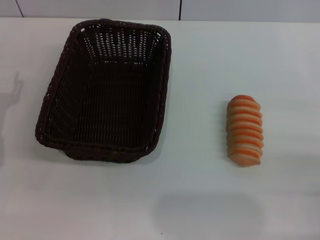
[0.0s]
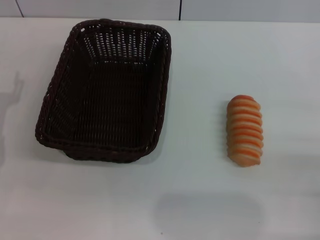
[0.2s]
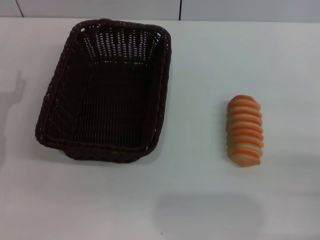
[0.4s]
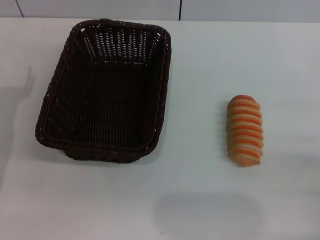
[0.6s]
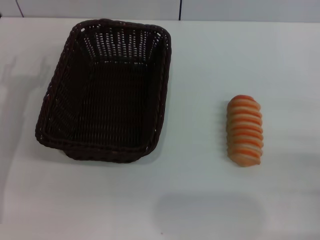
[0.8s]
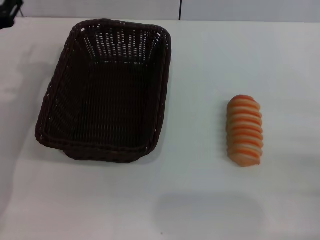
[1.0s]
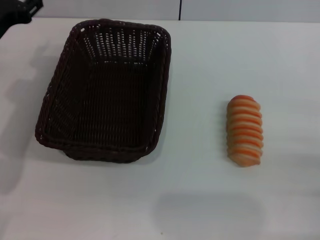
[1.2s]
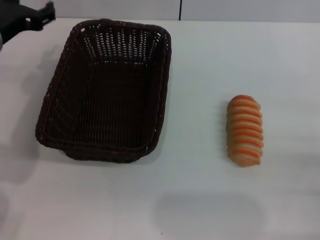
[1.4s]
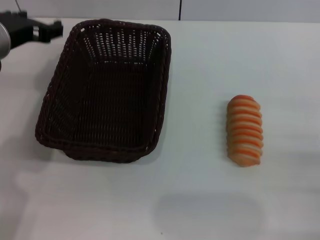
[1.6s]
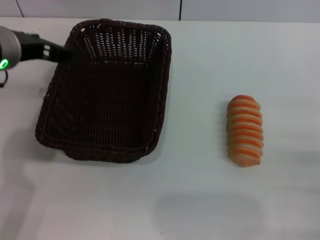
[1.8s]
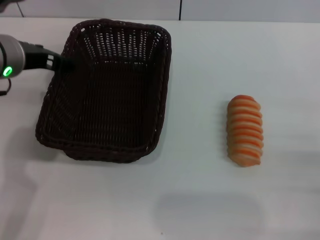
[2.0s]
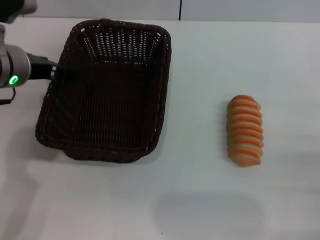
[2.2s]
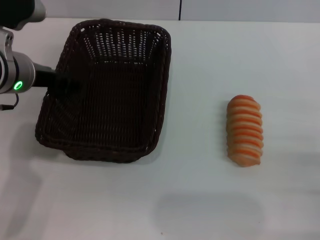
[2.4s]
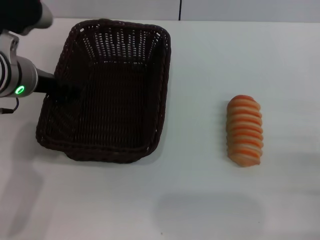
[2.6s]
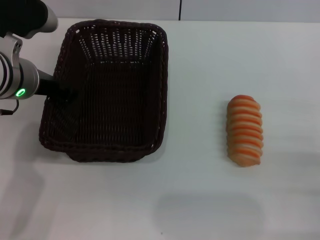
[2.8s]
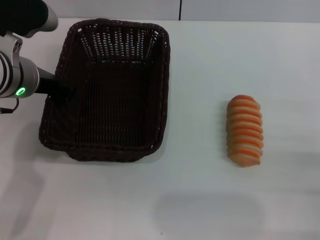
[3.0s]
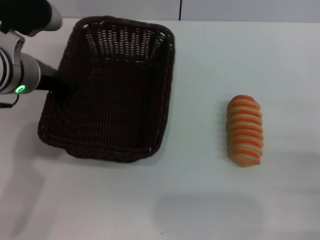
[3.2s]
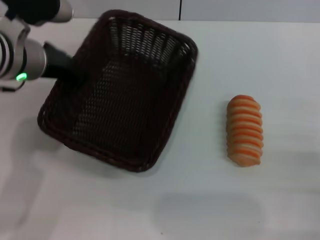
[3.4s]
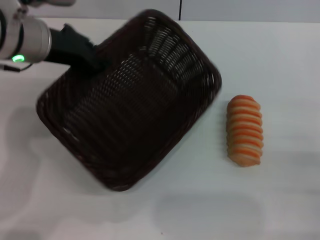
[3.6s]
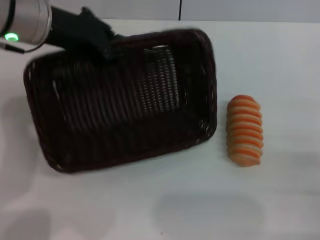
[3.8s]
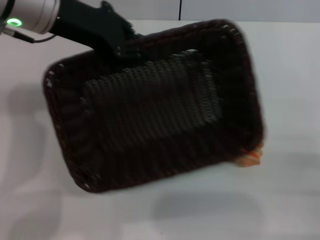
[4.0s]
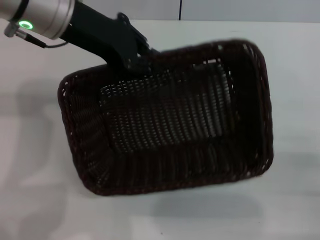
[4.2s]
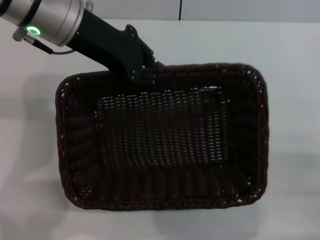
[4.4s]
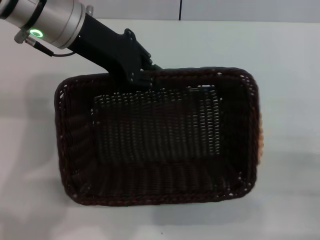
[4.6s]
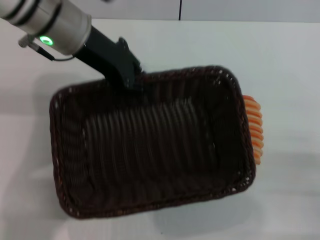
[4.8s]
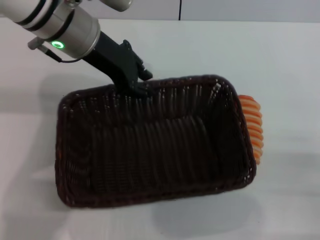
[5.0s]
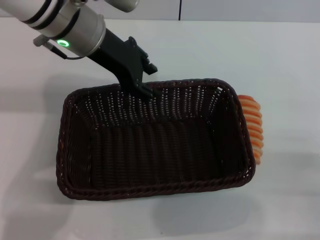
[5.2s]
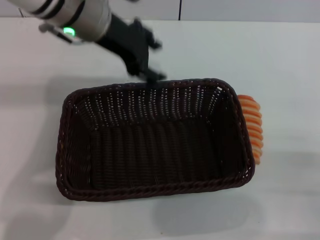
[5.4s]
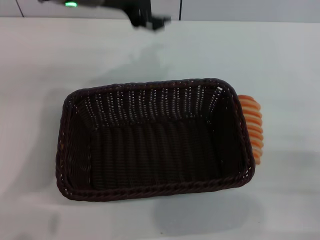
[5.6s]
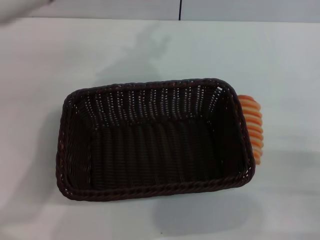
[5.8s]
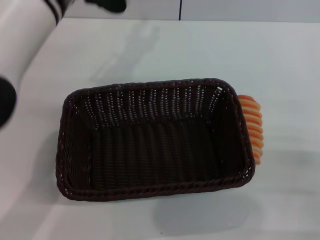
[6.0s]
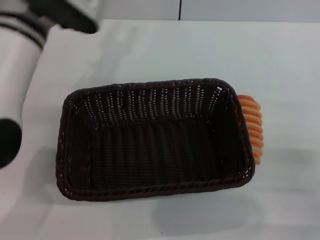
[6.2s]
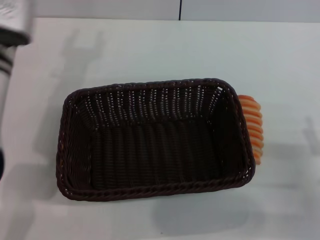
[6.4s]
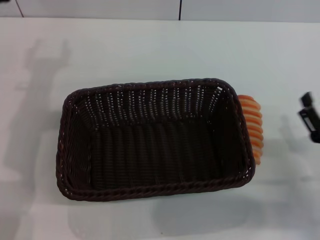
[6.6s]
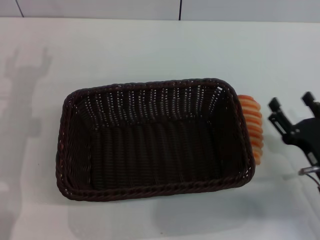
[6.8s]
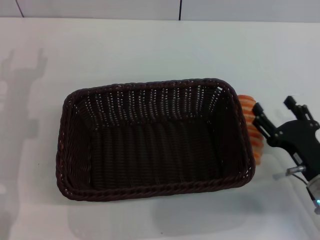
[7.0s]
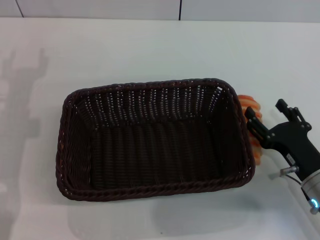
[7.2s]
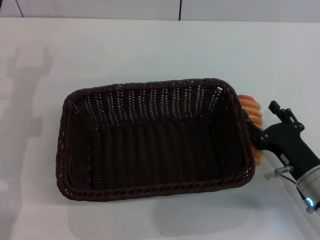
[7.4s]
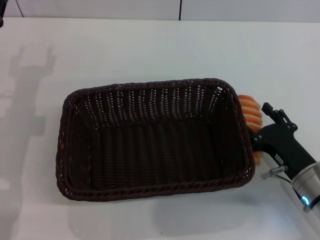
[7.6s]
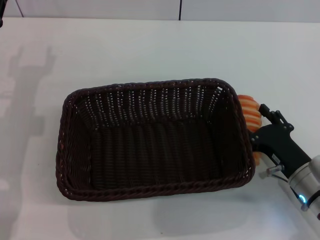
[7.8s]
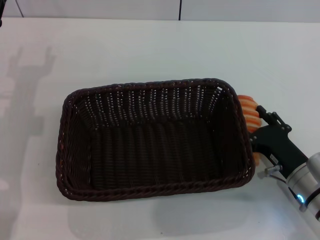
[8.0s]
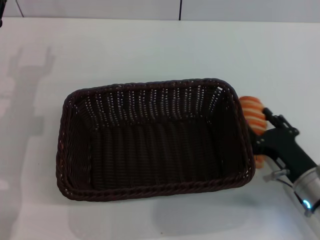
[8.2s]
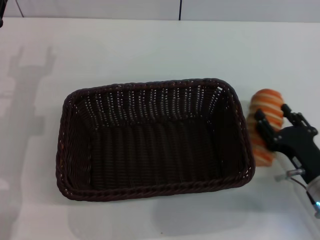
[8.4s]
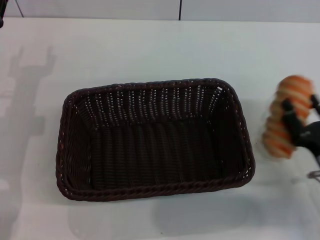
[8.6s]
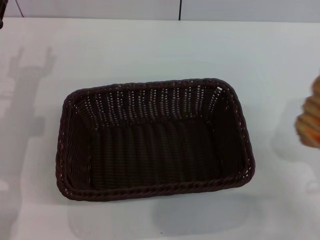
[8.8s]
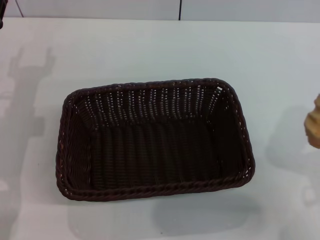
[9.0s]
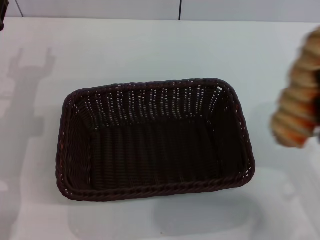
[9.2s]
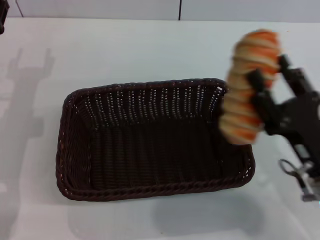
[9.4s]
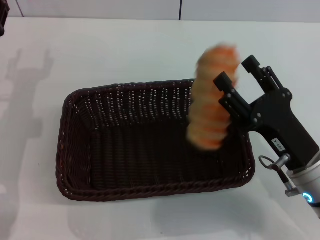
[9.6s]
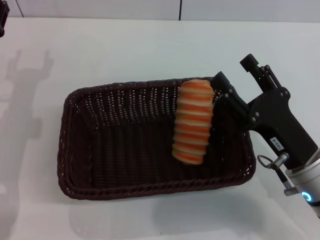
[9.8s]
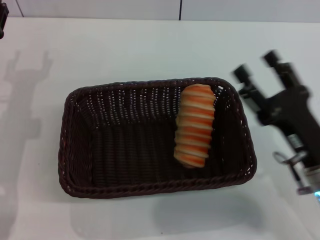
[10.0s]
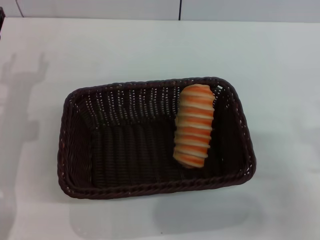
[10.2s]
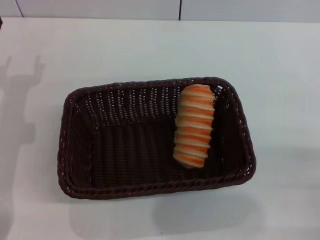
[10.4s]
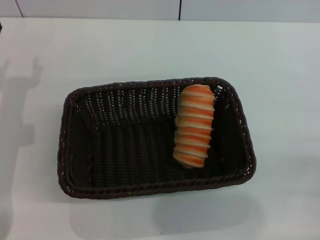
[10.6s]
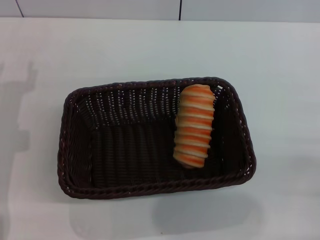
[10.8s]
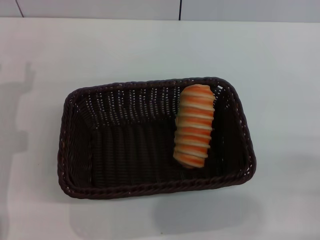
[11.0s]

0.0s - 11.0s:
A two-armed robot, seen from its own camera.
Step, 0.0s - 3.6s: Pick up the dark basket with the left gripper.
Step, 3.8s - 5.2s: Place the dark basket in the center of view with the left gripper.
Step, 5.4s - 8.4s: Pick up the long bread with the right gripper.
Step, 8.6s - 9.8s: Place the long bread into the dark basket with the right gripper.
0.0s - 1.6s: The left gripper heads upward, to the right and forward, covering approximately 20 cm.
1.6s - 3.2s: The left gripper closes its fingers.
3.2s - 4.8s: The left gripper moves upward and to the right, about 5 cm.
4.8s - 6.2s: The left gripper opens its fingers.
6.2s - 7.8s: The left gripper shifts some 15 cm to the left and downward, while the right gripper moves to the left and forward, about 10 cm.
7.8s - 9.4s: The right gripper moves upward, roughly 5 cm, and closes.
9.4s - 11.0s: The right gripper moves to the right, roughly 10 cm, and opens up.

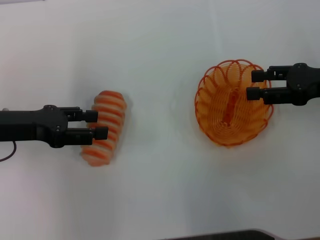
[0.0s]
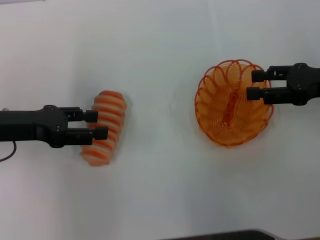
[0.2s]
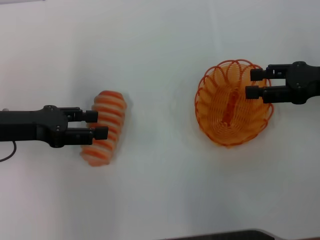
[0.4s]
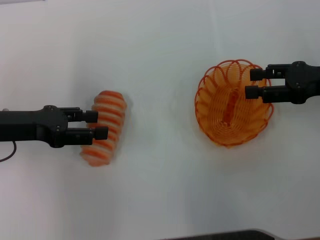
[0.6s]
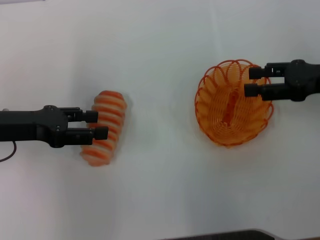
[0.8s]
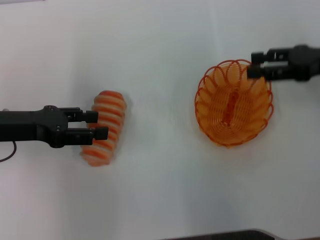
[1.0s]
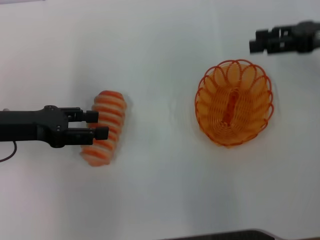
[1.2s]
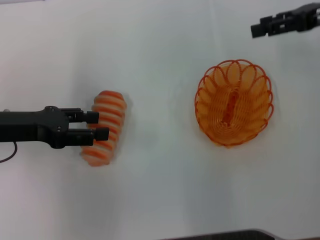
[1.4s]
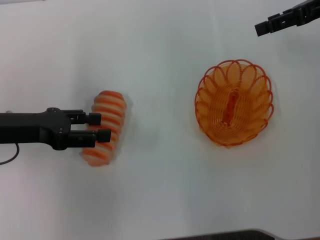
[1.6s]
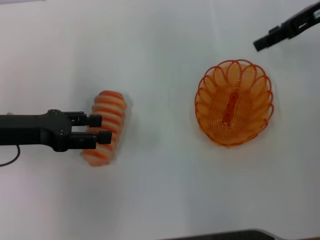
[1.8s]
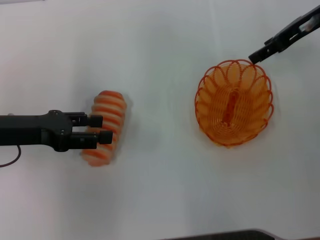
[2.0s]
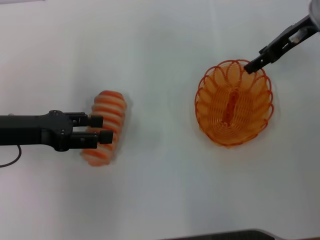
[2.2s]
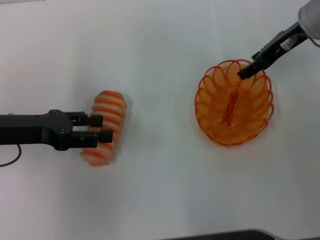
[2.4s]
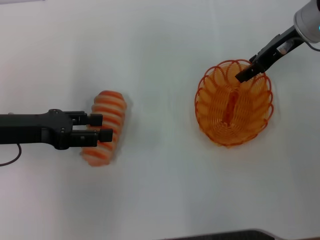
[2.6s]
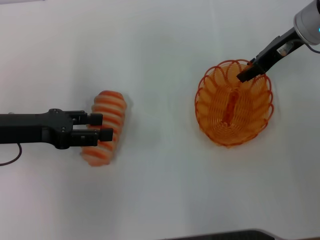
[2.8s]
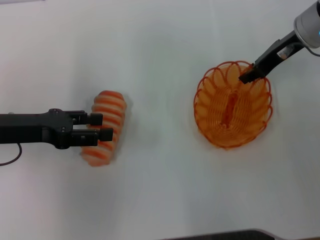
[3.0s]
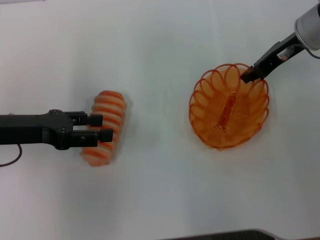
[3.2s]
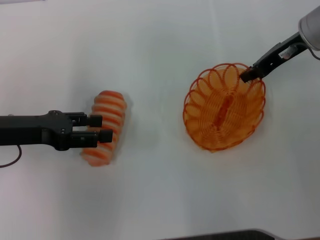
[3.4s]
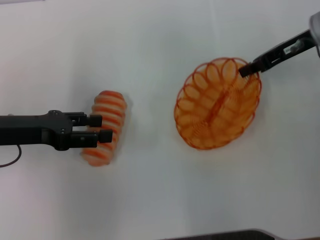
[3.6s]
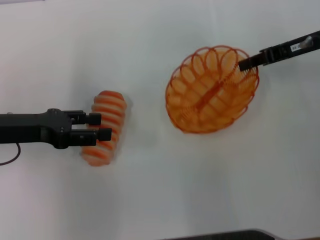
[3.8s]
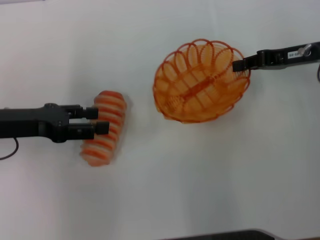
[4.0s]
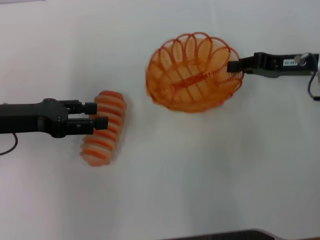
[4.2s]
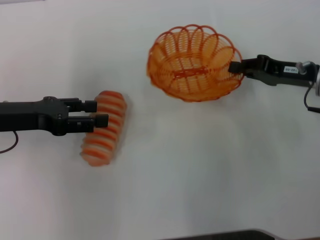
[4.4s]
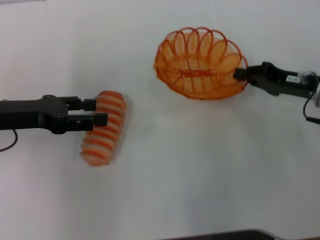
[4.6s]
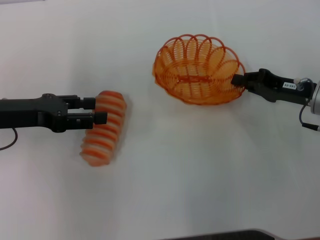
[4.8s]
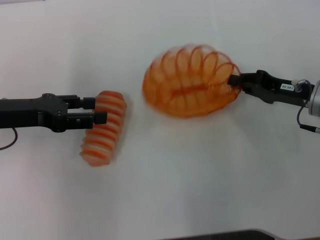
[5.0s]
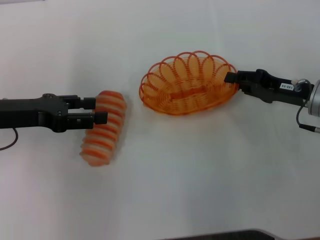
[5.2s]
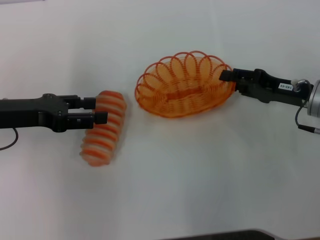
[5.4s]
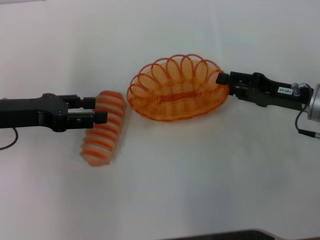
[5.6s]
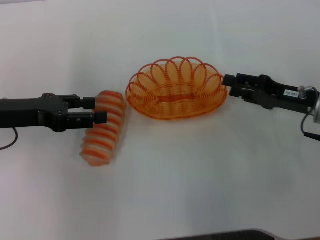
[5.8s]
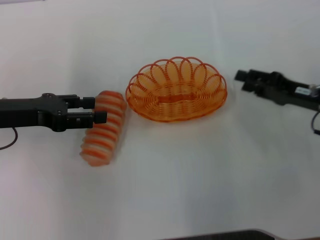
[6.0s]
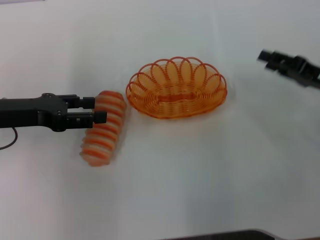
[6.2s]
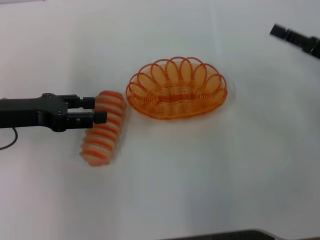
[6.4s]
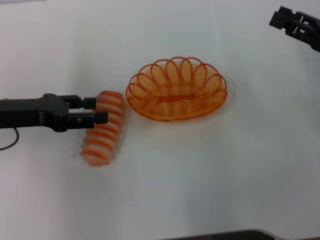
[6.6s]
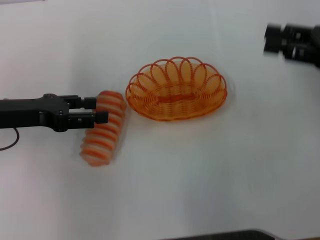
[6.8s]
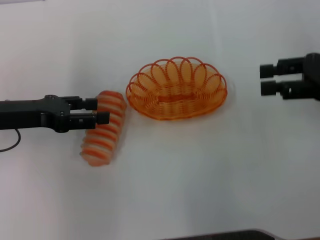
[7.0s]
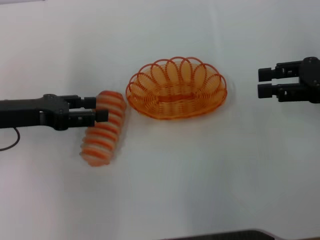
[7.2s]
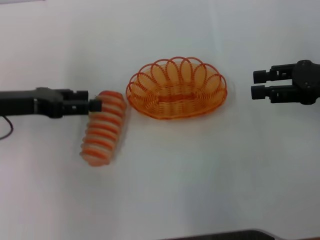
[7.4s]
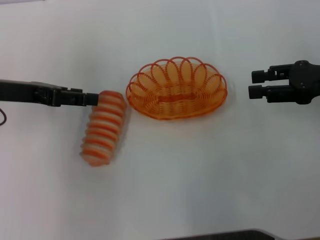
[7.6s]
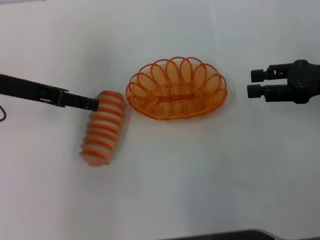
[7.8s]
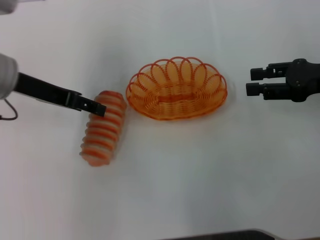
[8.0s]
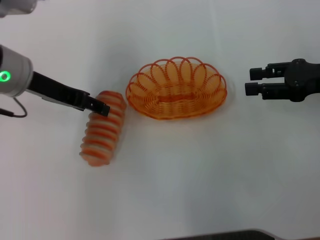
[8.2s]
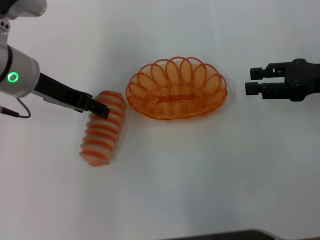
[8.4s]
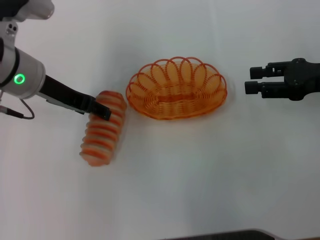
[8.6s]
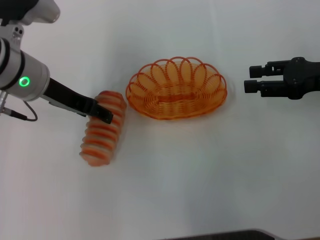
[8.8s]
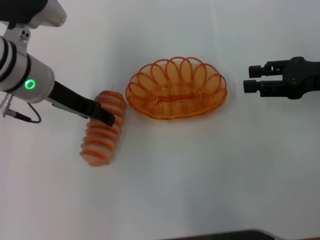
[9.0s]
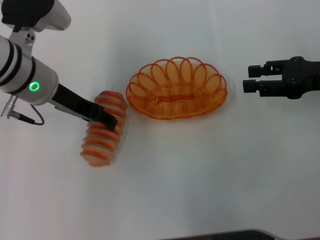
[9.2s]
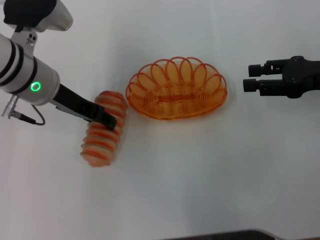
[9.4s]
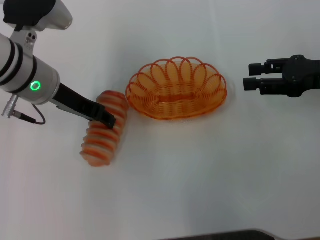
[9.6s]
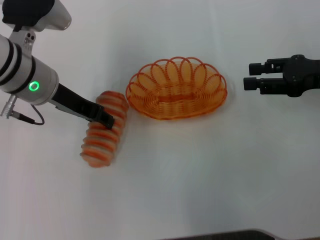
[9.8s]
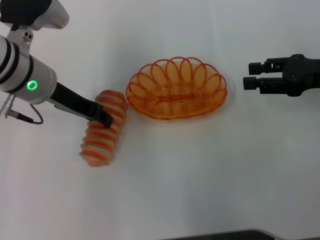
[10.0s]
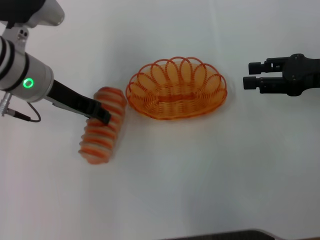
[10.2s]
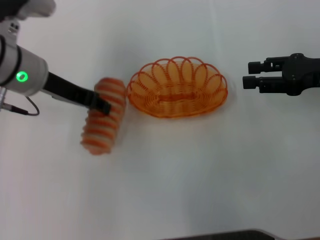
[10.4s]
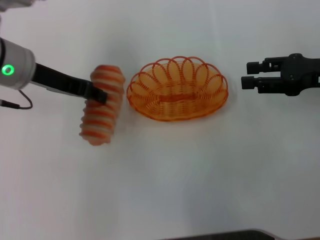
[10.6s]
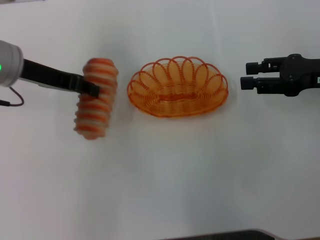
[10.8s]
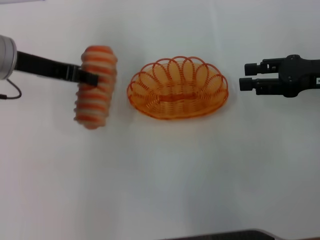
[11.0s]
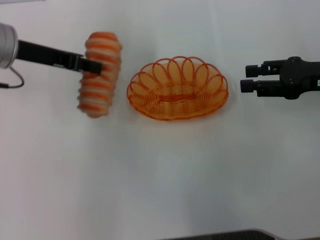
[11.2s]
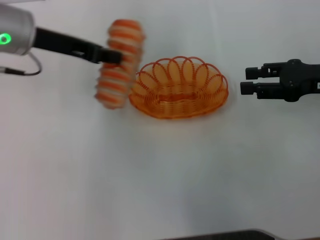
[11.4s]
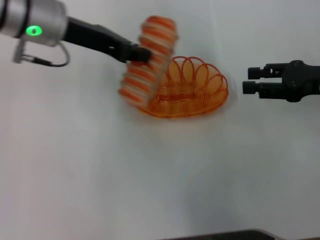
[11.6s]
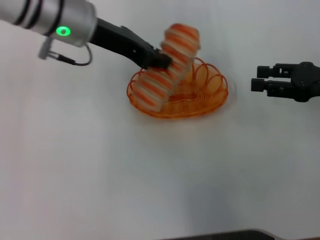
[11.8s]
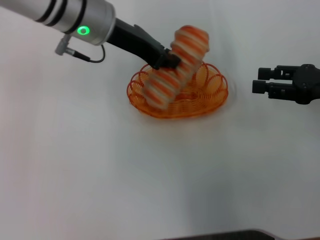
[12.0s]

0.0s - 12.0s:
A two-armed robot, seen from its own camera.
Step, 0.0s - 3.8s: Pick up the basket with the right gripper.
Step, 4.2s - 6.0s: Place the basket in the center of view with the right gripper.
Step, 6.2s - 10.8s: Pick up the long bread with the left gripper.
0.0s - 1.6s: The right gripper moves upward and forward, about 15 cm.
1.6s - 3.0s: The right gripper is displaced downward and to the left by approximately 10 cm, and closes its fingers.
3.0s - 4.4s: The right gripper shifts about 10 cm backward and downward, and closes up.
4.4s - 6.0s: The right gripper opens its fingers.
6.0s - 7.6s: The right gripper is displaced upward by approximately 10 cm.
7.6s - 9.0s: The left gripper goes some 10 cm to the right.
9.0s - 10.4s: The left gripper closes up.
10.4s - 12.0s: The left gripper moves to the right, roughly 10 cm, and closes its fingers.
